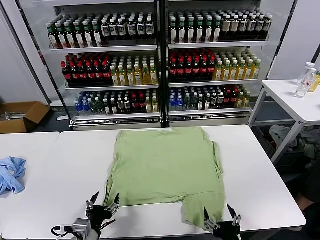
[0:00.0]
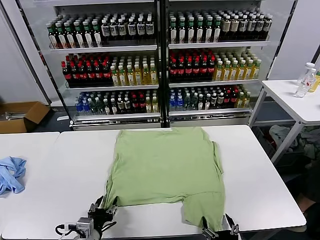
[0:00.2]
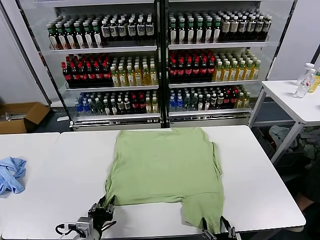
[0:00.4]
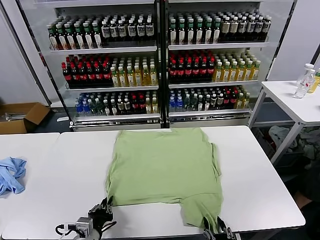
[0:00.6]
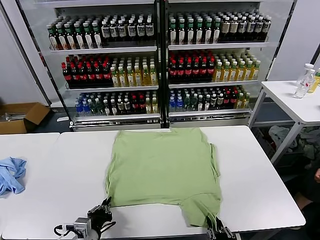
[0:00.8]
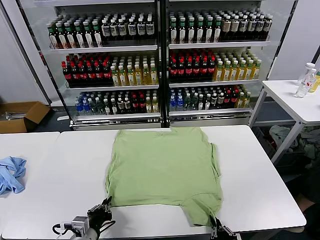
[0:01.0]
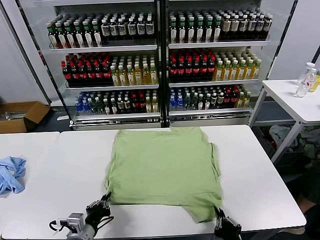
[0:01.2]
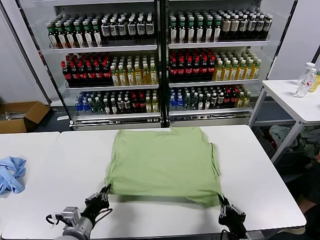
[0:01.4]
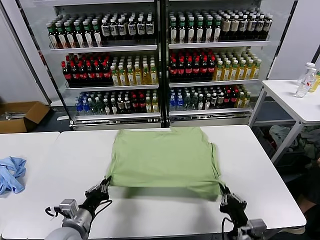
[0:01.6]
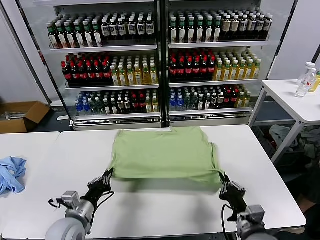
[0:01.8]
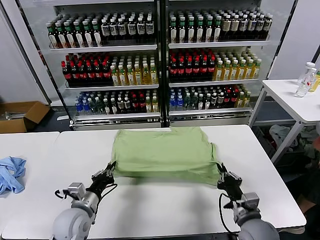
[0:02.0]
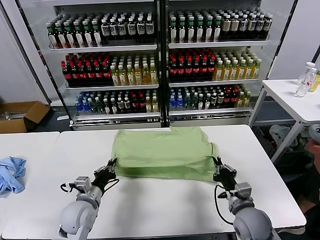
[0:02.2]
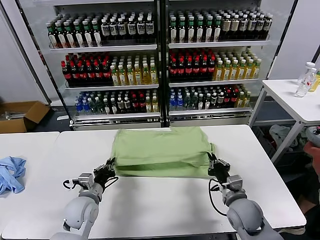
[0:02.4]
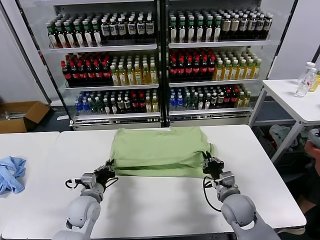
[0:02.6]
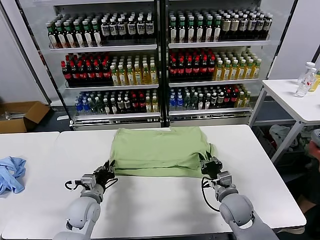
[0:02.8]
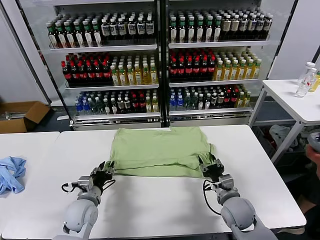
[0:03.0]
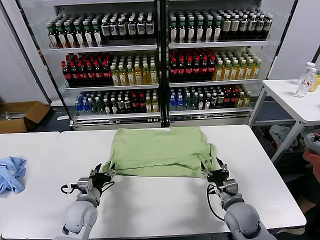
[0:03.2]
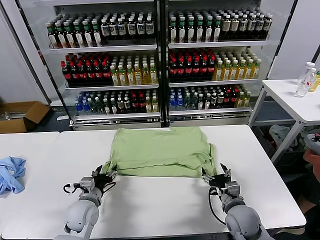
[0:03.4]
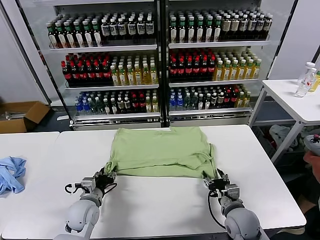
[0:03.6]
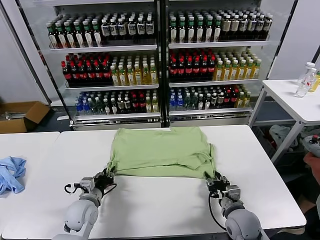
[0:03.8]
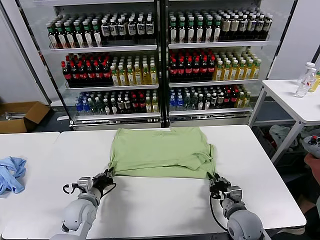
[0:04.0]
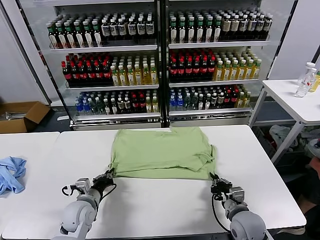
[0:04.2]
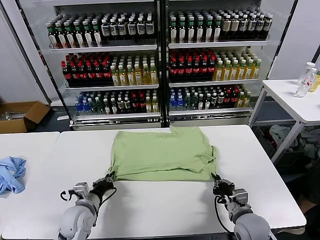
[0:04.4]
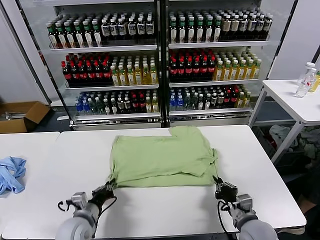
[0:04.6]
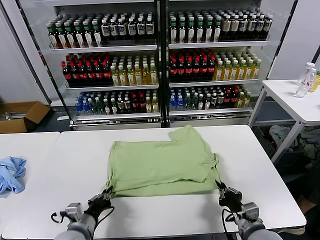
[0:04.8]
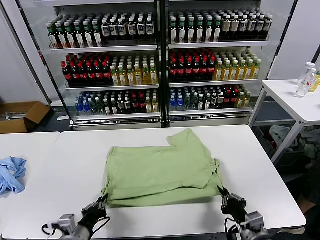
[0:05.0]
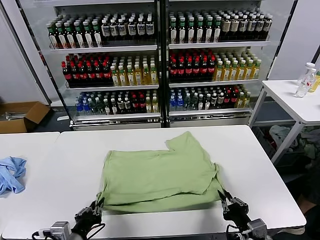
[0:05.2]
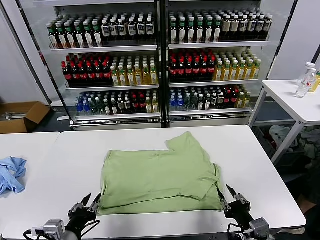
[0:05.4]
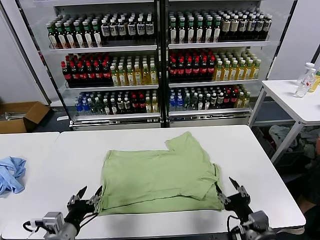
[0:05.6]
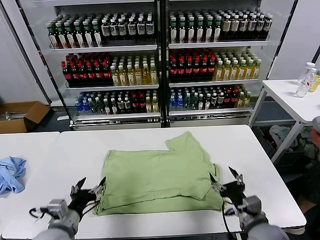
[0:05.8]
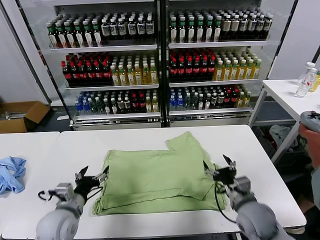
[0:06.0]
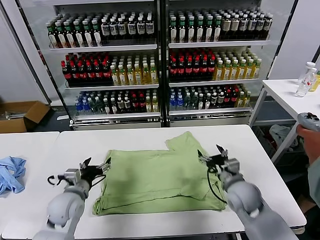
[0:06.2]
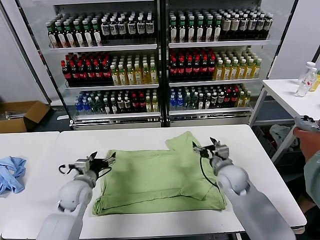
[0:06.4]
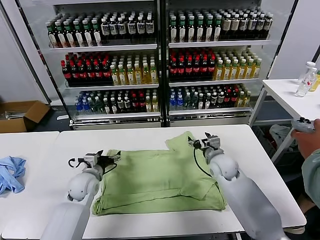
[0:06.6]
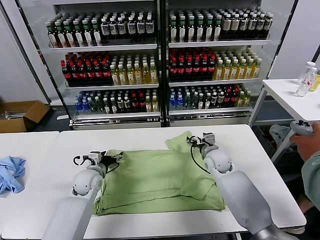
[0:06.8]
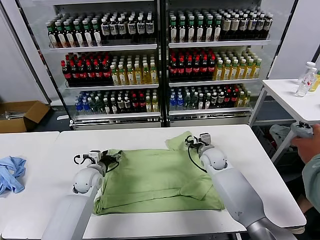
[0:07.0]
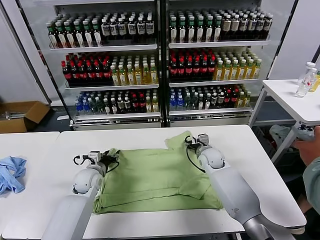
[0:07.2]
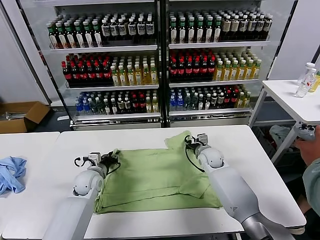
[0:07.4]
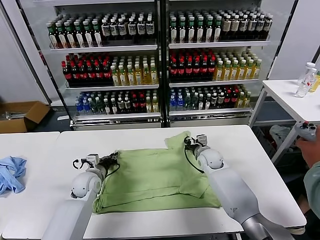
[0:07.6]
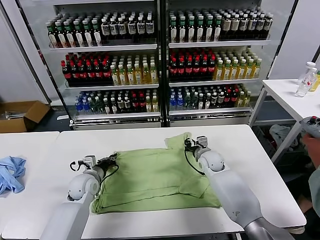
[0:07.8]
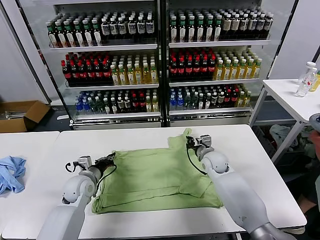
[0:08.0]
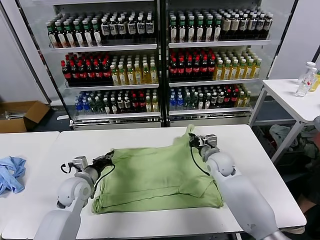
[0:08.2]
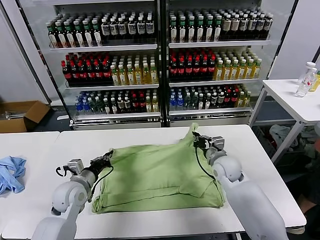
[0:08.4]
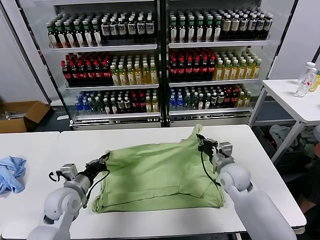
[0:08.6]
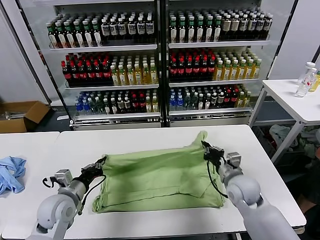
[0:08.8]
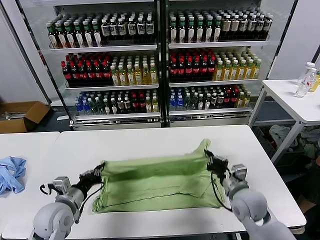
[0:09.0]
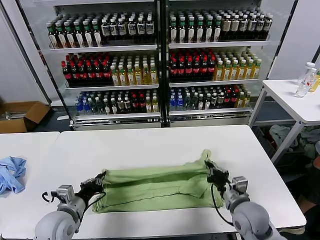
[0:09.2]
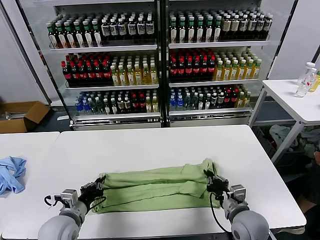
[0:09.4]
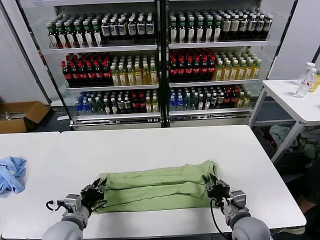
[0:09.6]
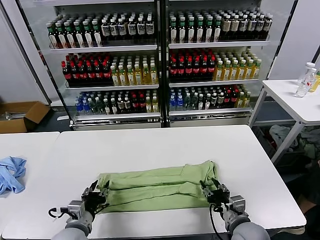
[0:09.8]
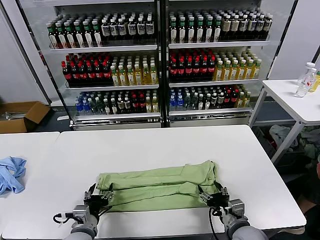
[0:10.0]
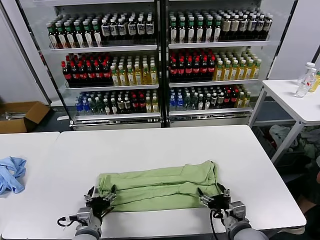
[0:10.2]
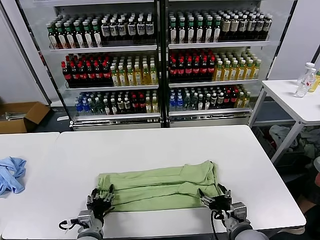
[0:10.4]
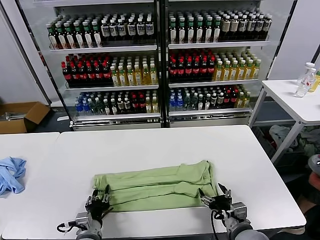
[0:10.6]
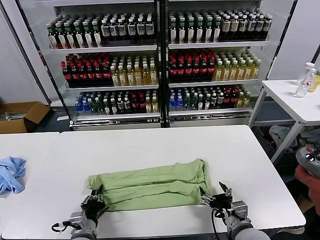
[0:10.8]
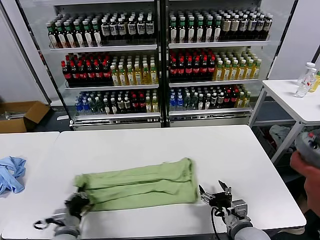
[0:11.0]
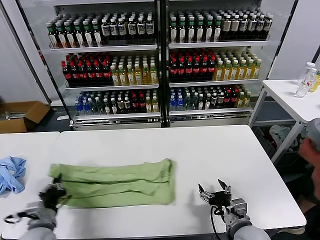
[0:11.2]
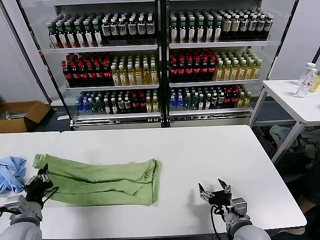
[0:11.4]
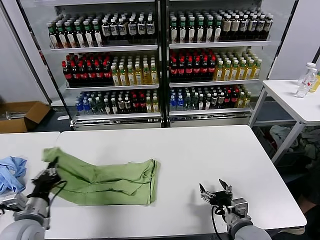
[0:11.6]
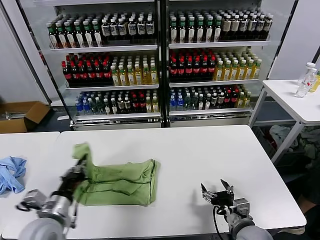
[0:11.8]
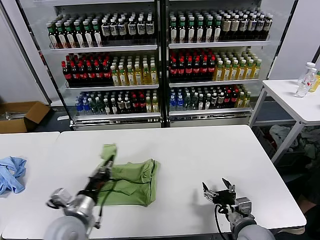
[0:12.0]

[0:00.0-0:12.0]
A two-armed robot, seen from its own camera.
Task of the whole recording: fold and organize the clothes.
Step, 0.0 to 1.0 s: use both grippers simultaneously to clamp the lower edge of the clothing fabric.
Step, 1.2 to 3.0 s: use both grippers to drag the lower edge of the fabric forward and fold it over the upper edge.
Step, 3.2 to 5.4 s: Drag the clothes downward with both gripper.
Step, 5.6 to 7.6 s: use both grippers simultaneously to clamp the upper edge of the clothing fabric.
Step, 7.8 to 9.6 s: use both grippers to drag the upper edge of the fabric backward and fold it over the lower edge.
Step, 9.8 to 10.2 s: use the left gripper to clamp the left edge of the fabric.
1.6 to 3.0 s: Both grippers travel together forward, some 10 cm. The left gripper opens up. Meanwhile the right gripper opens up.
3.0 to 4.4 s: The right gripper goes about 5 cm backward, and closes its fingers. The left gripper closes.
4.4 to 6.0 s: The two grippers go about 5 cm upward. The right gripper reaches approximately 10 cm backward, then returns, and opens up. Meanwhile the left gripper travels backward and back again, roughly 15 cm each way, and opens its fingers.
6.0 to 7.6 s: Both grippers travel together forward, roughly 20 cm. The right gripper closes its fingers; the left gripper closes its fingers.
7.6 to 9.0 s: The left gripper shifts roughly 15 cm backward and upward. Meanwhile the right gripper travels backward by about 20 cm.
9.0 to 10.4 s: The left gripper moves downward, to the right and backward, about 15 cm, and opens up; the right gripper is displaced backward by about 10 cm, and opens up.
10.4 to 12.0 s: The left gripper goes approximately 10 cm upward, moves roughly 15 cm to the left and comes back, and closes.

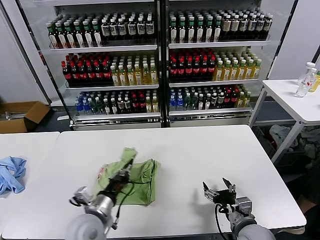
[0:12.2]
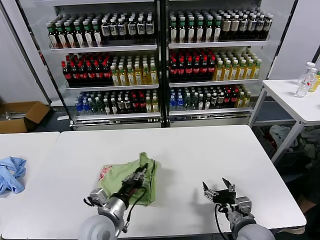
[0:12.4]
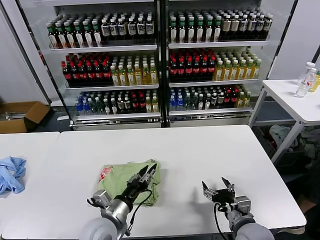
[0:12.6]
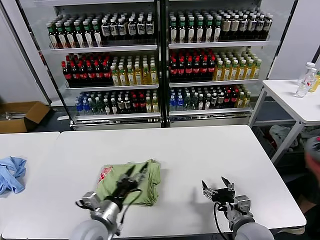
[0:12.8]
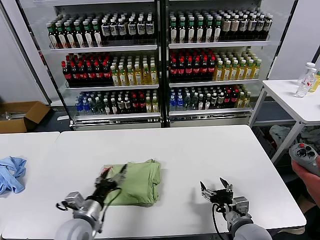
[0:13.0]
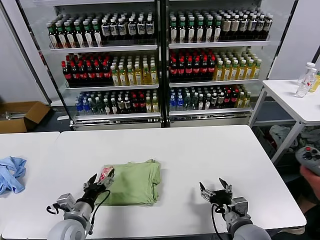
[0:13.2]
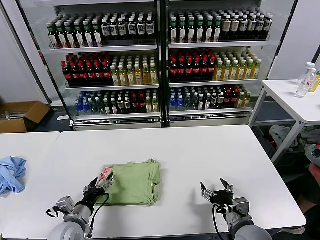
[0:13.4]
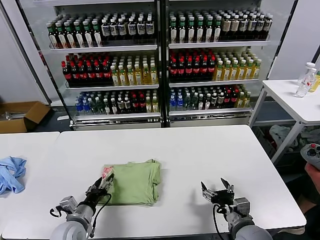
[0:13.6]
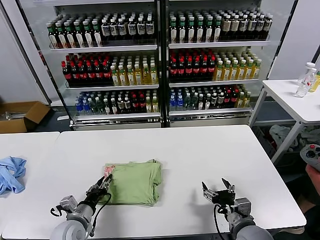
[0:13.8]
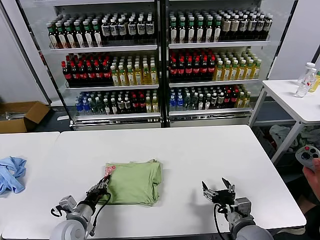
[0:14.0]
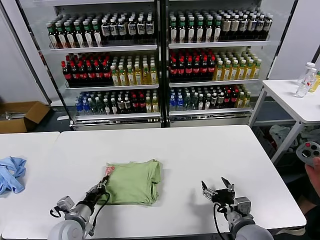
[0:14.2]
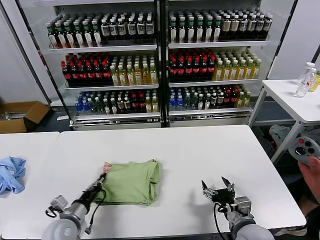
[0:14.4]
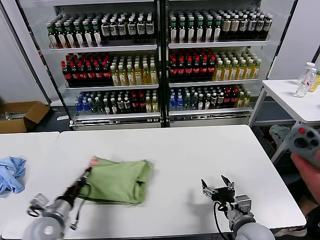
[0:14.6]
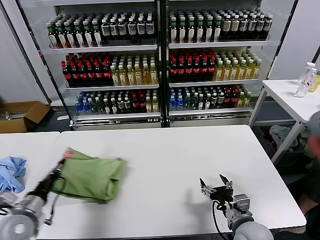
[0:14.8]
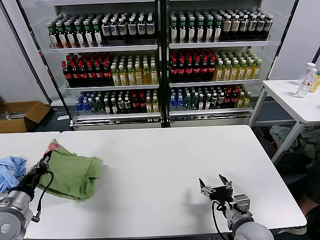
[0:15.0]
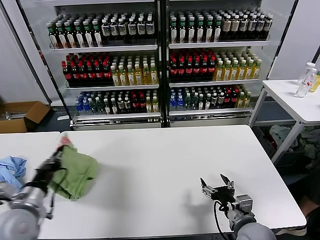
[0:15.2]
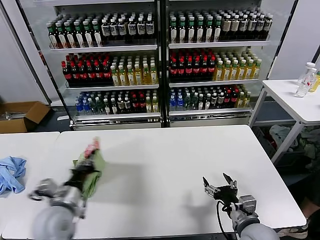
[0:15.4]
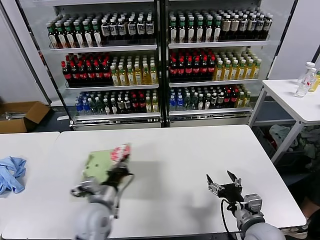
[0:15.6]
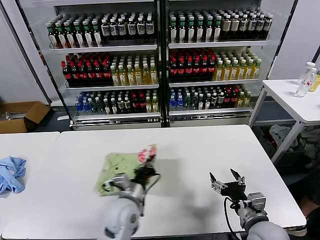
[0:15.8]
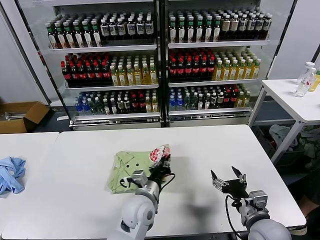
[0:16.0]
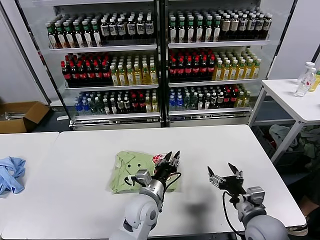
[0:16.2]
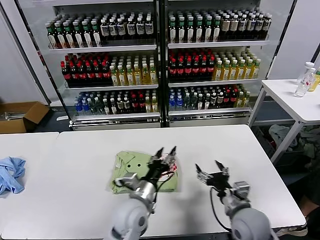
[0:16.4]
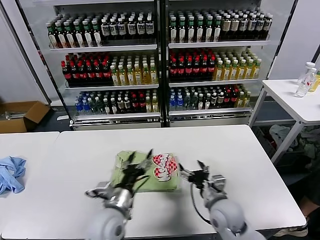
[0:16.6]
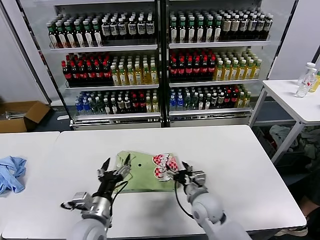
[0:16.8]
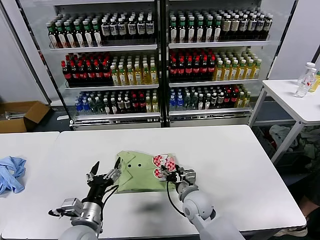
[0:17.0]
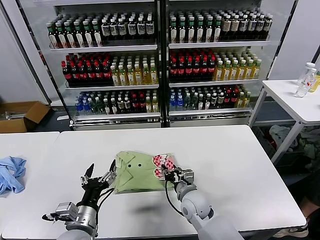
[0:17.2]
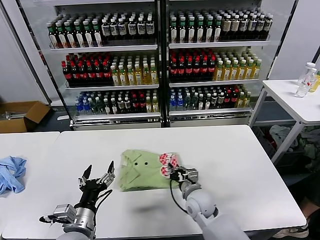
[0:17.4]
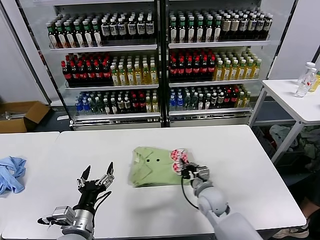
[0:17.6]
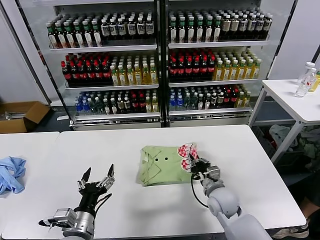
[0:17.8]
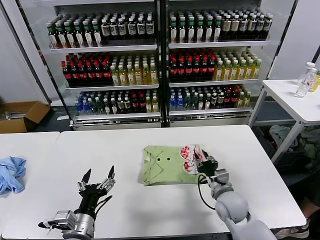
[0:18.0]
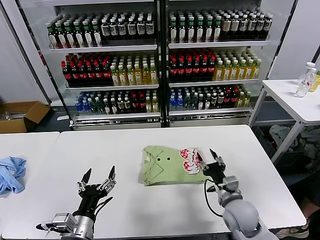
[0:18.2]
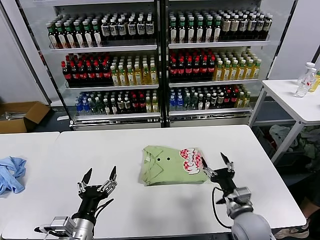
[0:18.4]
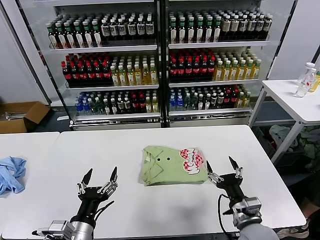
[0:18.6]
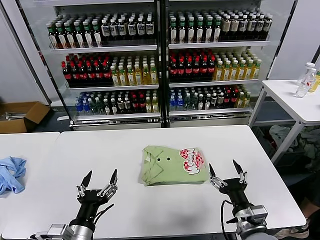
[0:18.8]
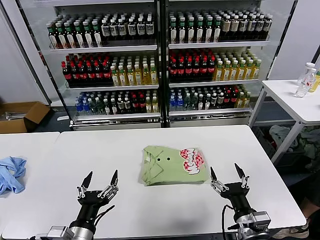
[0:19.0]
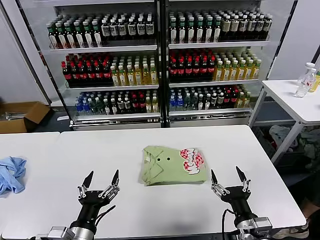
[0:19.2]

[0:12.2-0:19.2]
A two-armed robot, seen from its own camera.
Task of the whole recording: fold and organize the clothes.
Step, 12.8 to 16.2 s: Flip the folded clothes over with left gripper.
Step, 16.4 to 18.0 s: Drag the clothes to the center of the table.
12.2 to 13.6 s: The left gripper moves to the left and downward, some 10 cm, and opens up.
13.6 to 15.0 s: The left gripper heads to the left and upward, covering approximately 15 cm, and closes.
15.0 to 16.4 s: The left gripper is displaced to the right by approximately 35 cm, and opens.
16.4 to 17.8 s: The left gripper goes roughly 20 cm to the left and backward, and opens its fingers, while the right gripper goes about 15 cm forward, downward and to the left, and closes.
17.8 to 19.2 s: The left gripper shifts some 5 cm backward. Meanwhile the right gripper moves backward, about 20 cm, and opens its fingers.

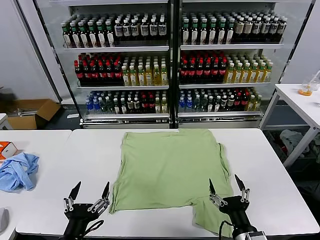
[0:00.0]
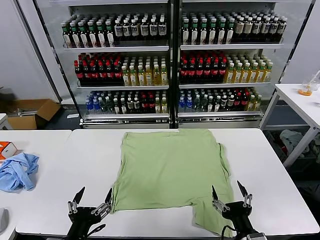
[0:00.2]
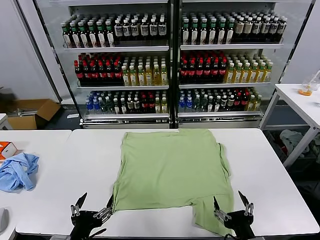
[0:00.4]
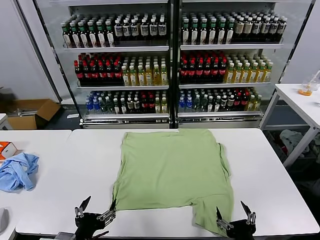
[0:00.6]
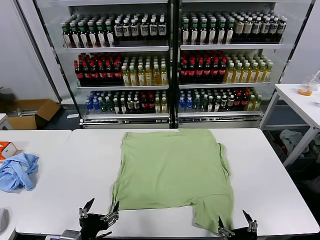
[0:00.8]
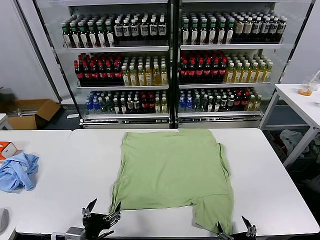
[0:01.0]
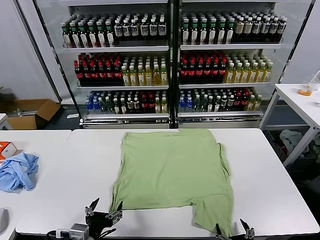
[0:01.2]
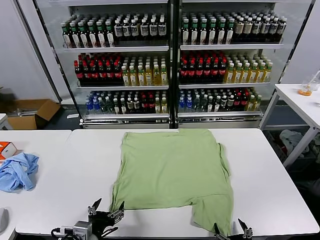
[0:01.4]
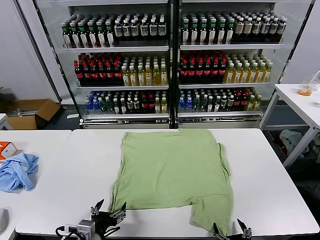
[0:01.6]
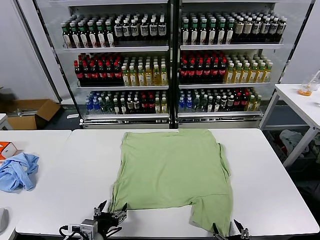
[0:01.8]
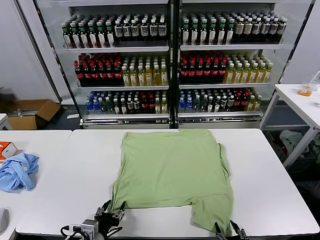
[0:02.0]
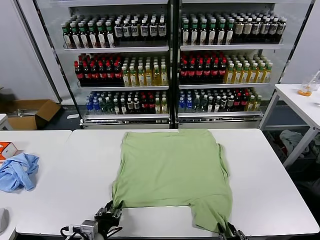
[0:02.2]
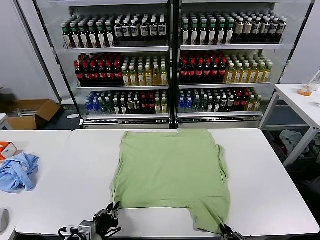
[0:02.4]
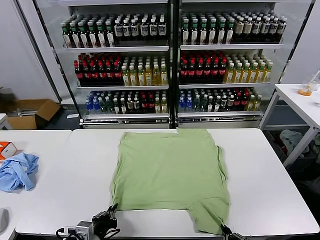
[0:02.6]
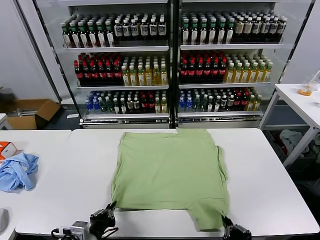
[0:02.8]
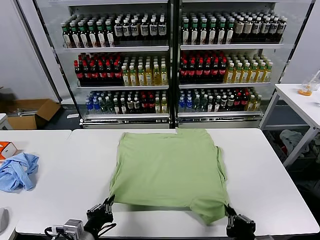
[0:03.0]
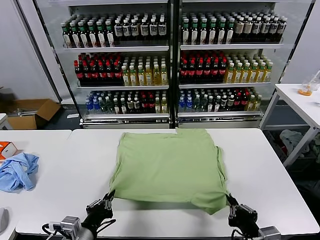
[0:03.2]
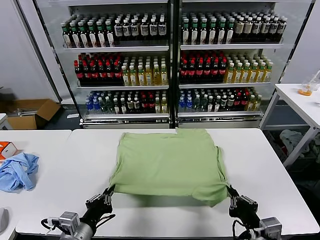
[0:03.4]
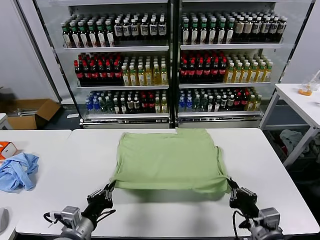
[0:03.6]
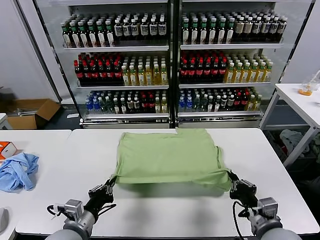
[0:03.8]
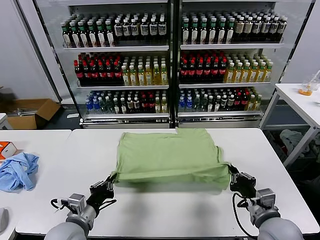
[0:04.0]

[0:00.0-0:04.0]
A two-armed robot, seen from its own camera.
Task of the whole recording: fold and organize the clothes.
Step, 0.0 to 2.6 s: use both grippers simultaneously to clamp the lower edge of the clothing fabric.
1.4 to 2.6 s: The left gripper closes up; the right gripper closes.
2.6 to 4.0 s: The right gripper goes approximately 15 cm forward; the left gripper moves forward, some 10 cm.
